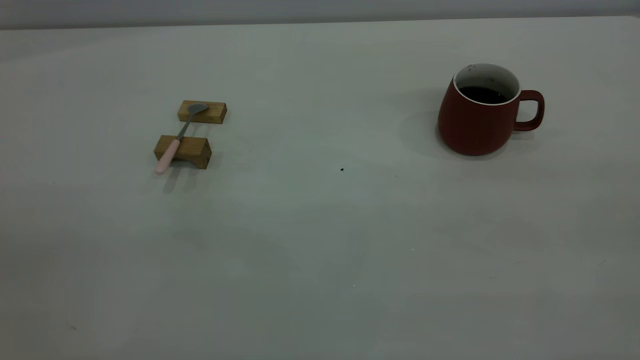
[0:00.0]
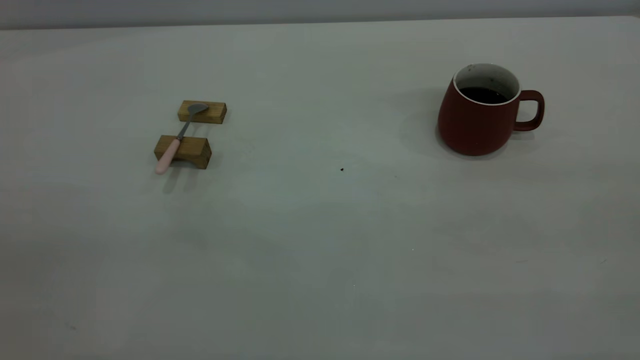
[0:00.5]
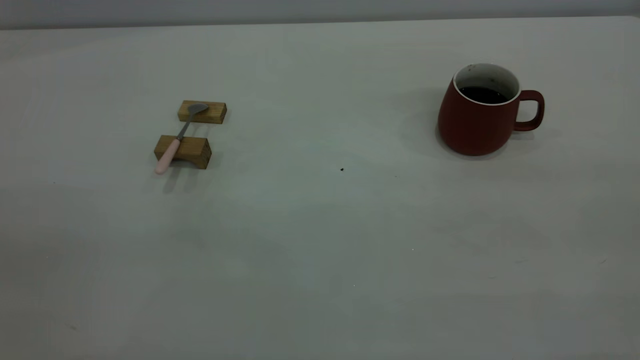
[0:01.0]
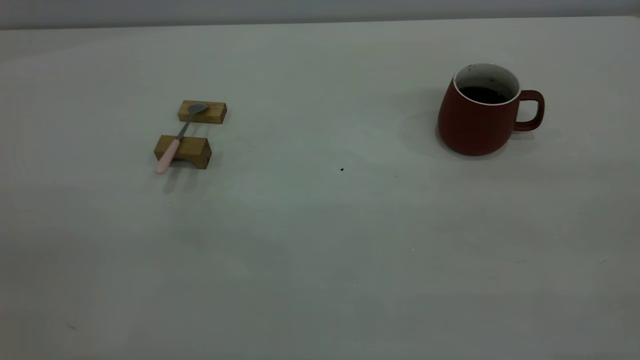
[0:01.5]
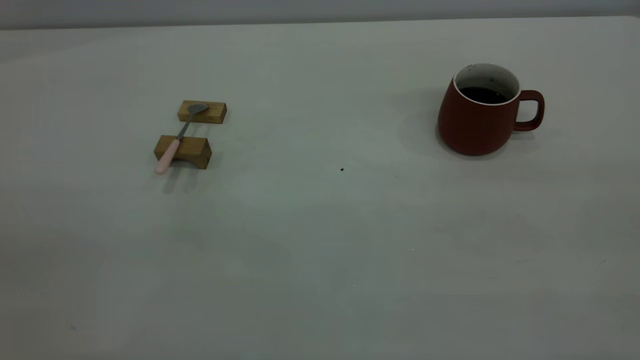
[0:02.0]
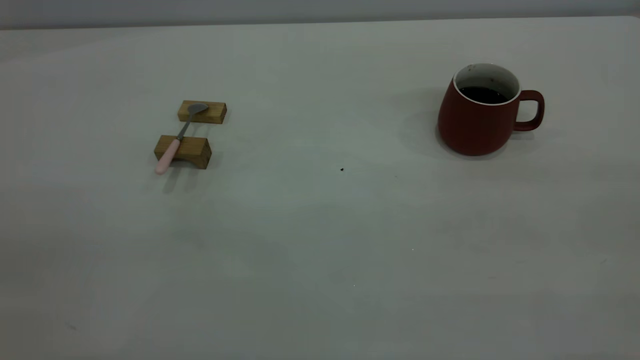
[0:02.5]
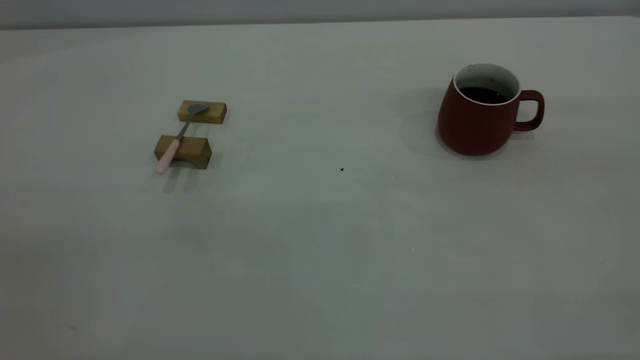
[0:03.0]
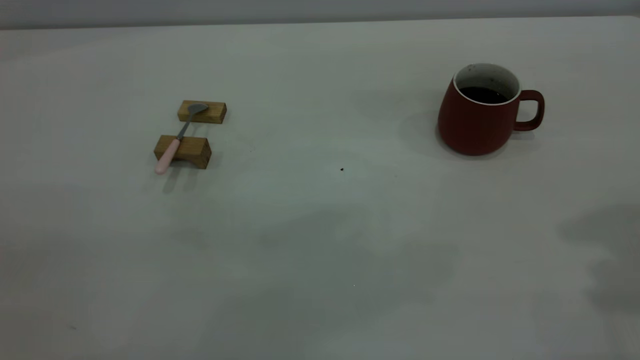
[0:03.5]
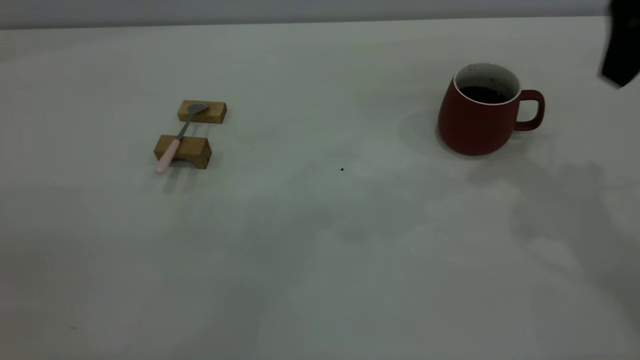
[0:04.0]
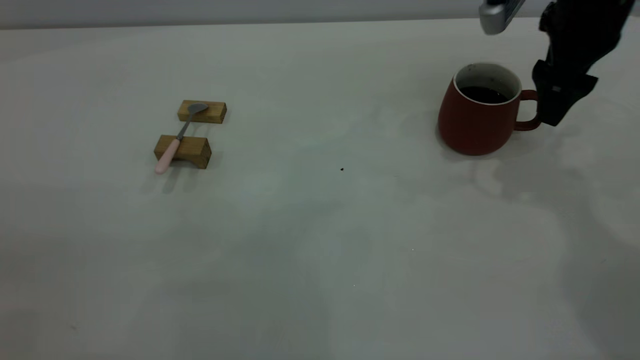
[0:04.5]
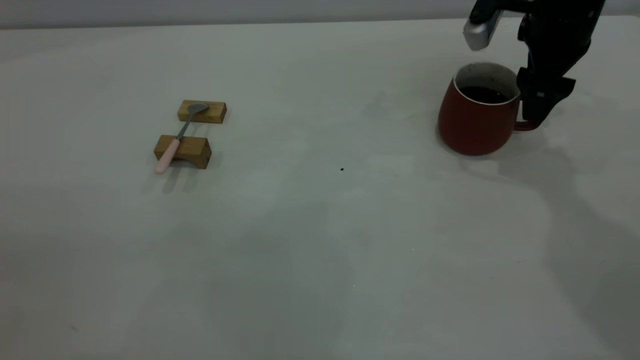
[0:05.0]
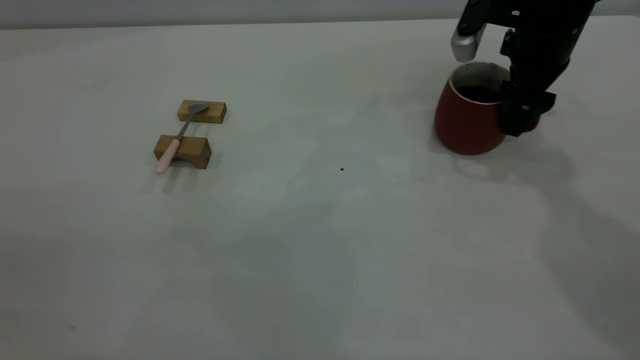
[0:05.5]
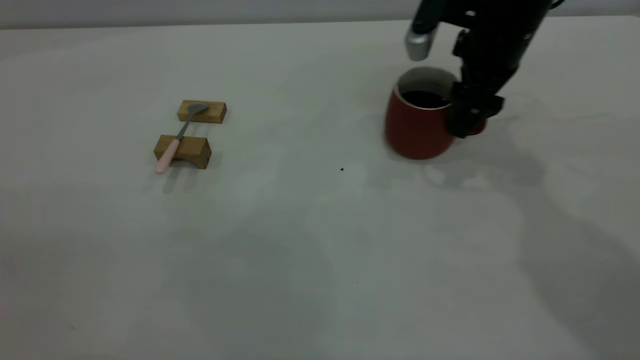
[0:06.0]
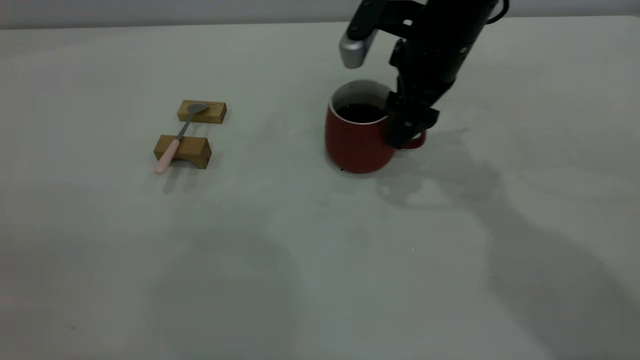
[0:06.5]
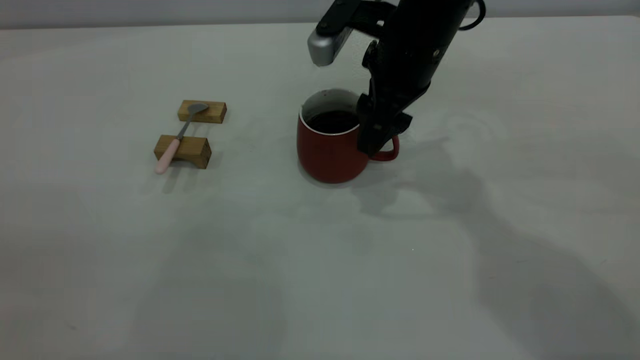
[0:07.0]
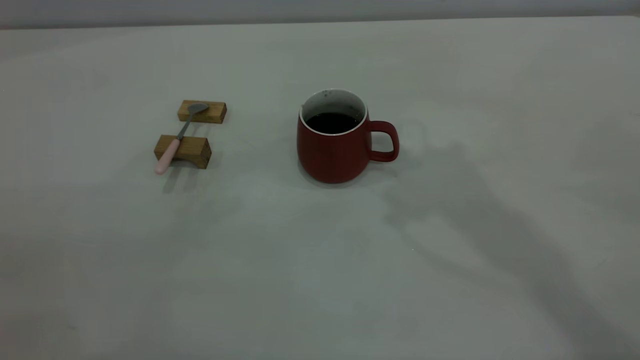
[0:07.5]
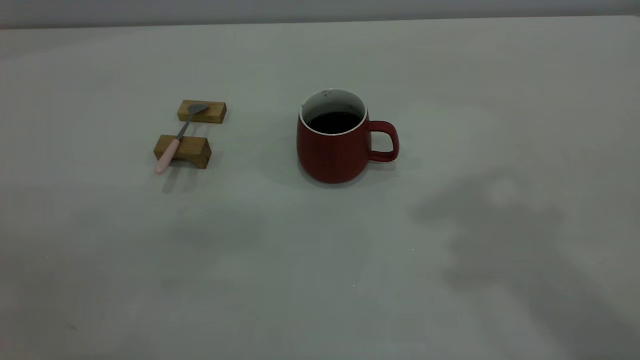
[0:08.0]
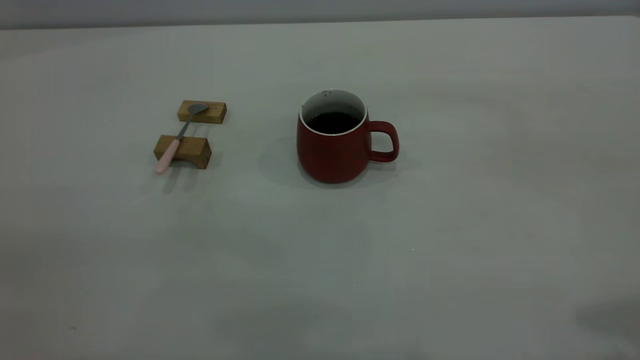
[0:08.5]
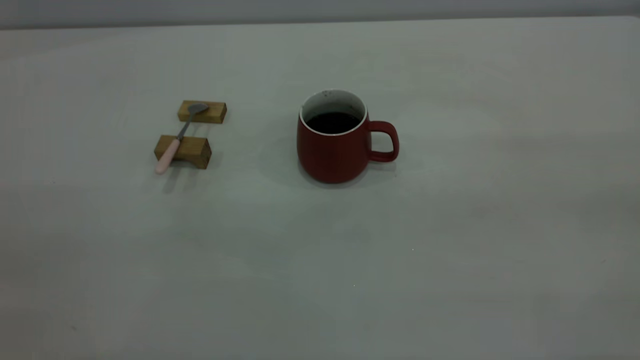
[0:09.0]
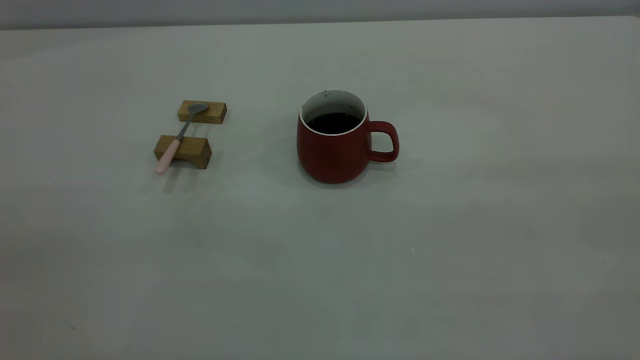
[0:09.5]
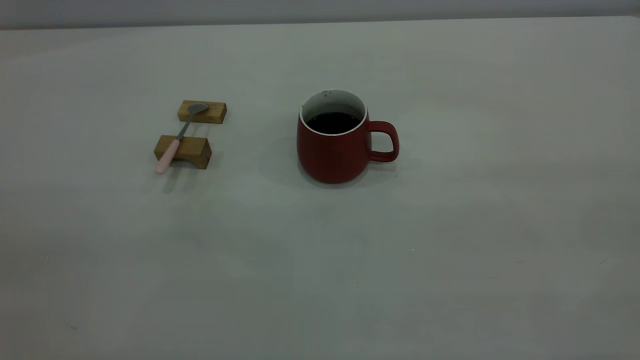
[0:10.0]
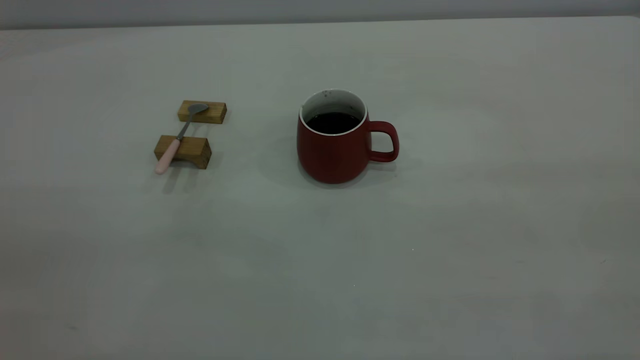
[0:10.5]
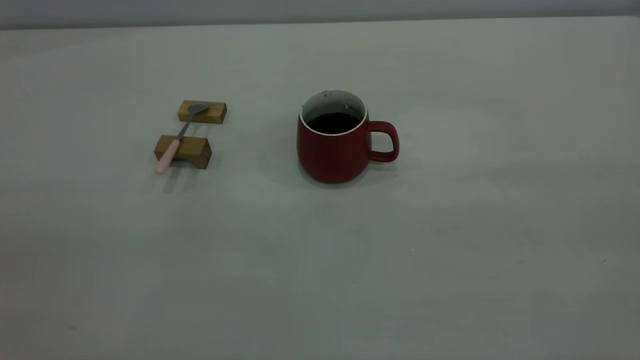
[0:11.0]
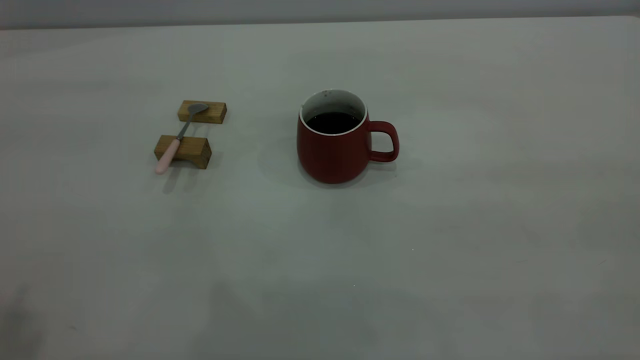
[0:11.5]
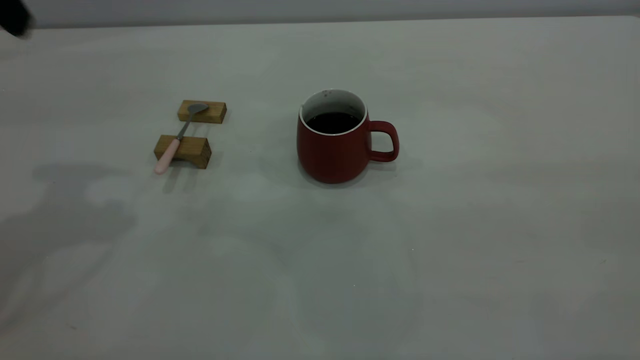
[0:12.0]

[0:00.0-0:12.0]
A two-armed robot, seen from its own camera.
Step, 0:00.0 to 0:07.0: Move the cup with coffee to the center of view.
0:00.0 to 0:02.0: Neither gripper changes place.
0:02.0 to 0:04.0: The right gripper is displaced forward by approximately 35 cm, and opens.
0:04.0 to 0:06.0: The right gripper travels downward, forward and to the left by roughly 15 cm.
0:06.0 to 0:08.0: The right gripper moves upward and backward, about 35 cm, and closes.

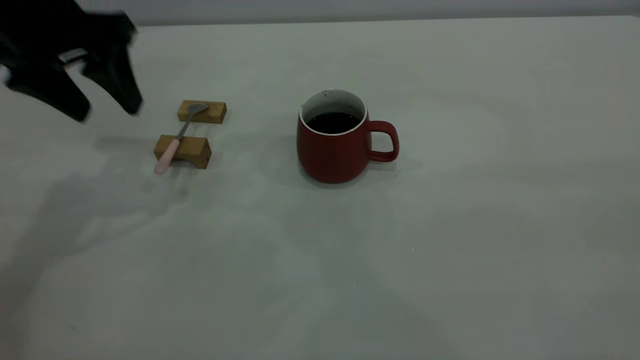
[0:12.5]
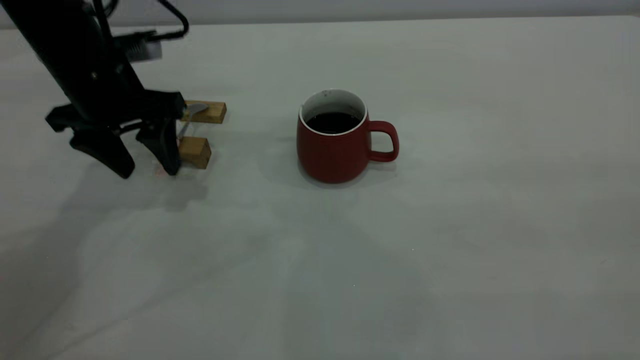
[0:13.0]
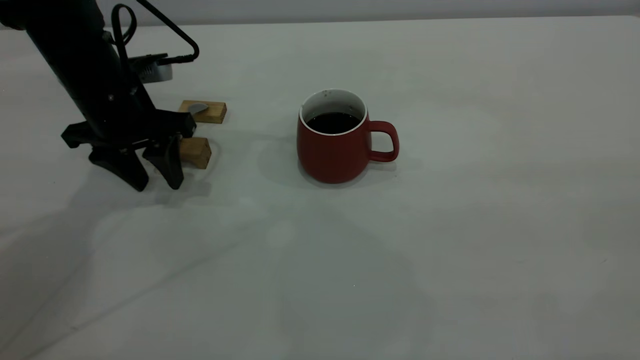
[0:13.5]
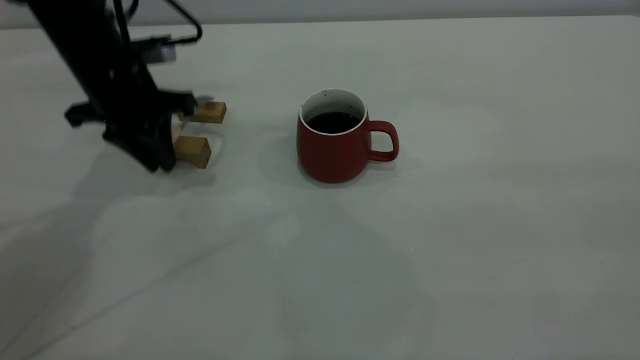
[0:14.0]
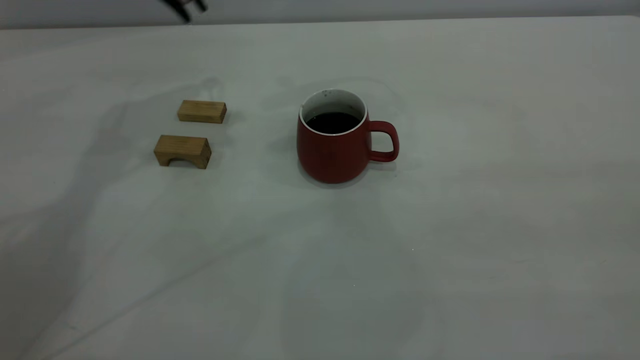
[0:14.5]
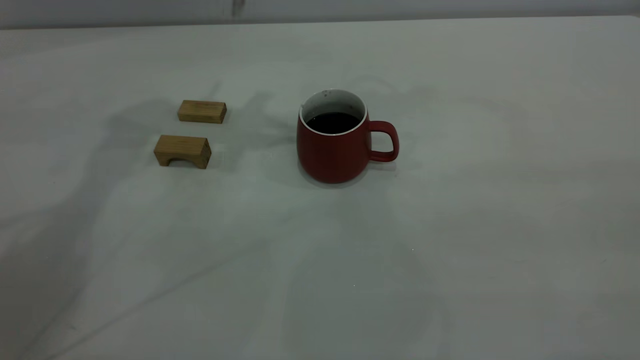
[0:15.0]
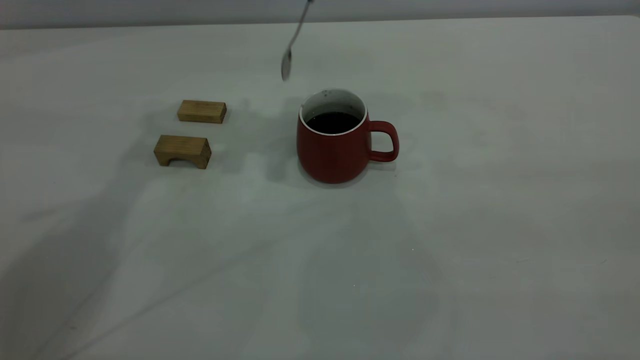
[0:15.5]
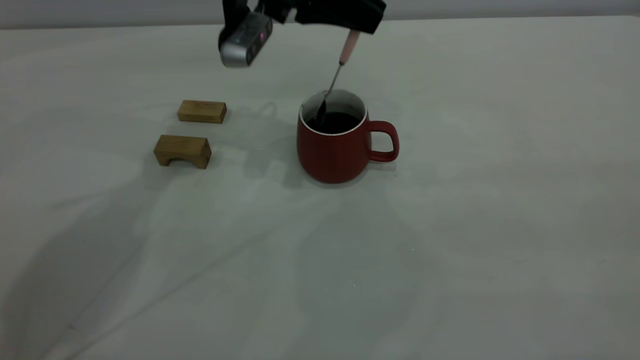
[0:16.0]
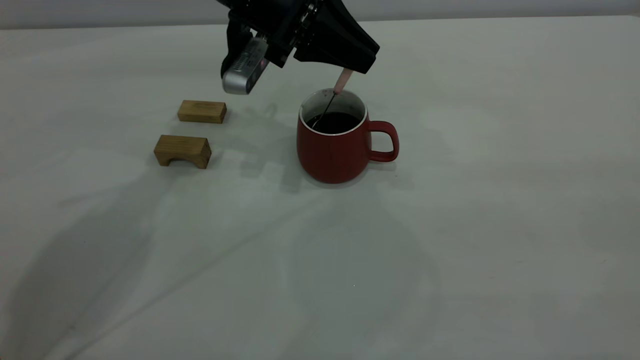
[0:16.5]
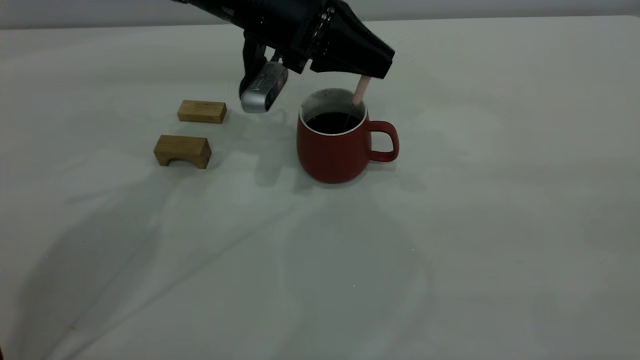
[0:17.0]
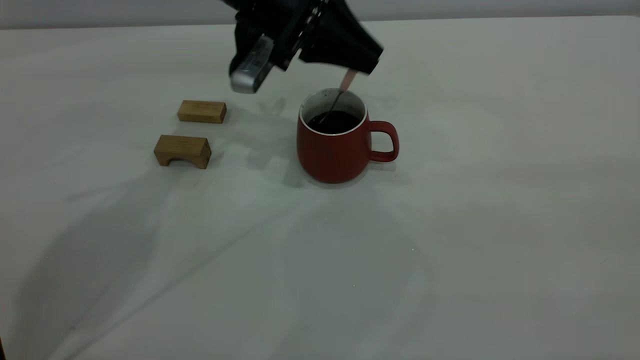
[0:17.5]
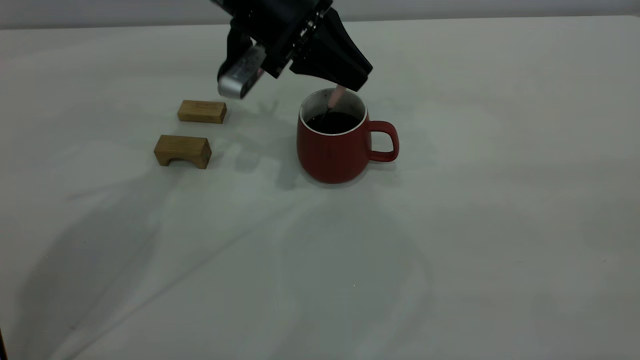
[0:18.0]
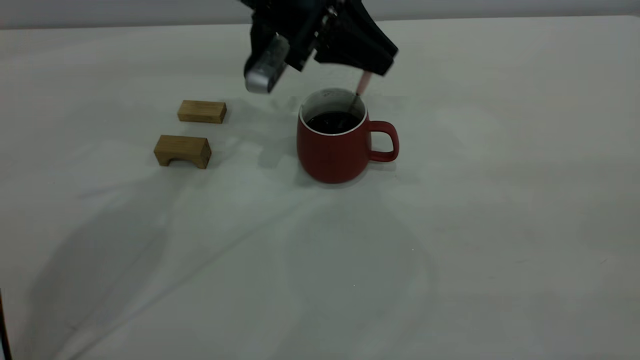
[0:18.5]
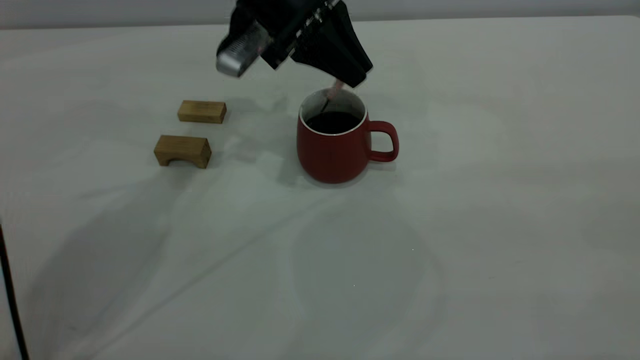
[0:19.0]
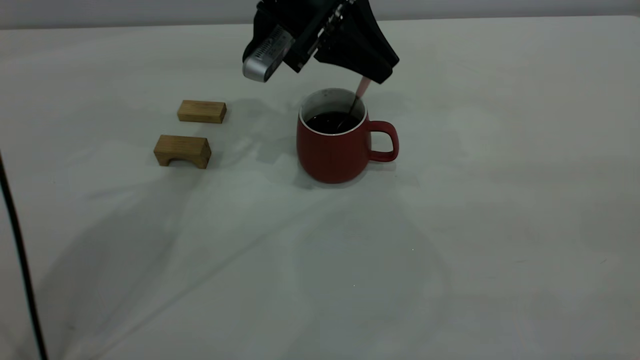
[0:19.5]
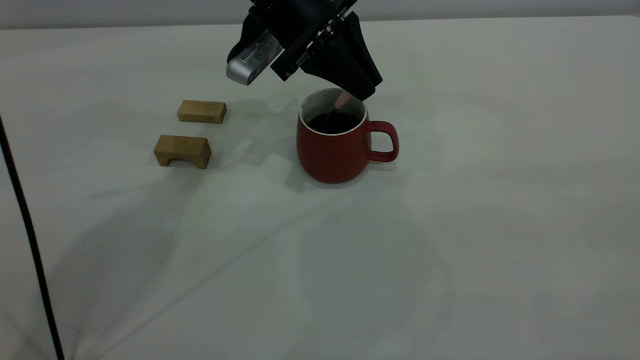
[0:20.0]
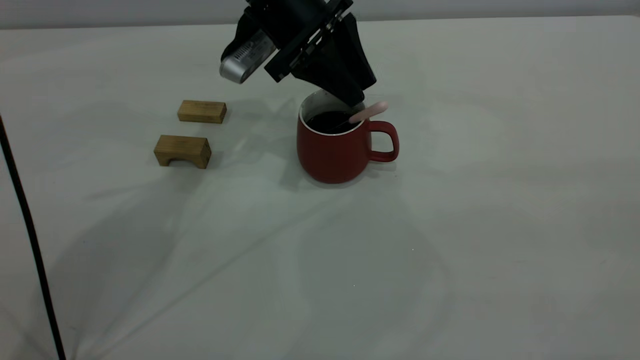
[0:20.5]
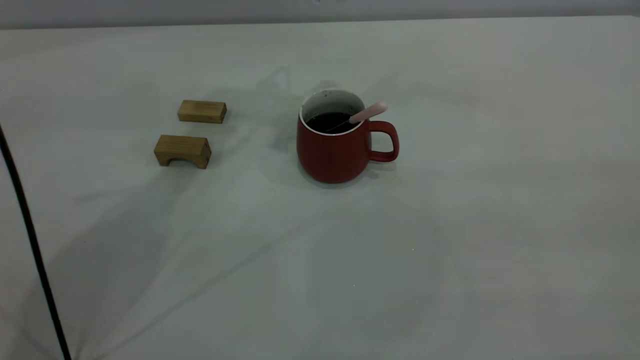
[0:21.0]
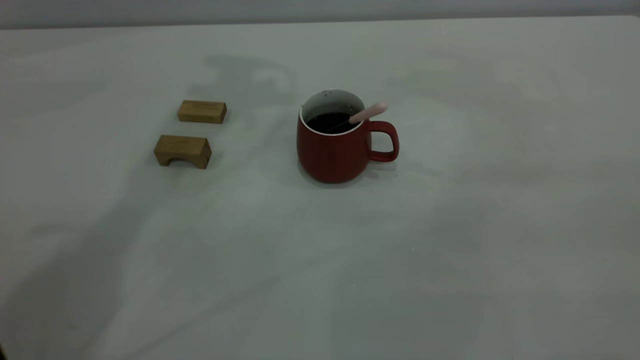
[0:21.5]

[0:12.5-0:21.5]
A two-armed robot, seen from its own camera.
Step, 0:14.5 to 0:20.5: Stir the coffee in the cup.
0:12.5 to 0:14.5: The left gripper moves forward, upward and to the right, about 15 cm, and closes its fingers.
0:14.5 to 0:17.0: The left gripper is displaced downward and to the right by roughly 15 cm.
0:19.5 to 0:21.5: The left gripper travels upward by some 25 cm, and opens its fingers.
